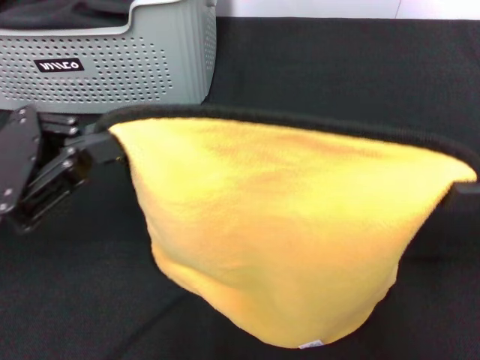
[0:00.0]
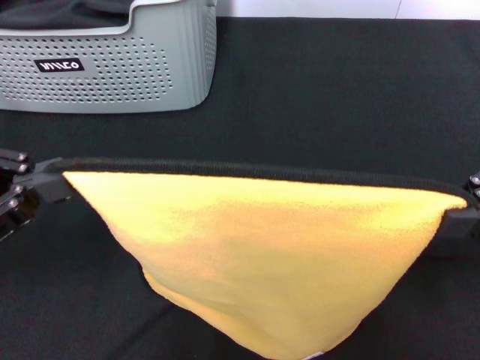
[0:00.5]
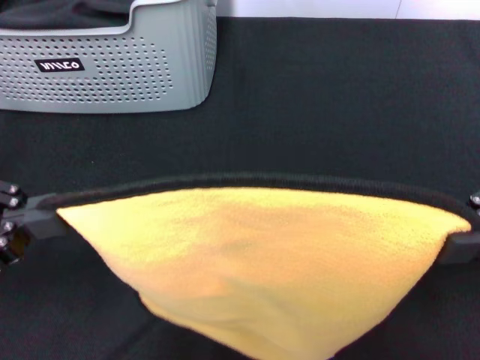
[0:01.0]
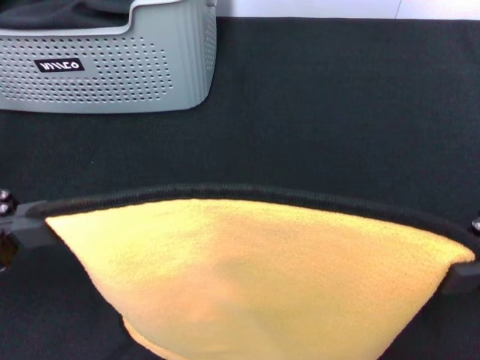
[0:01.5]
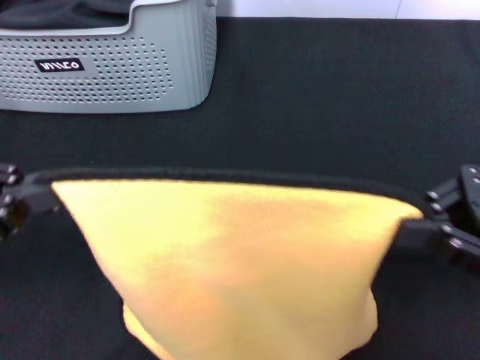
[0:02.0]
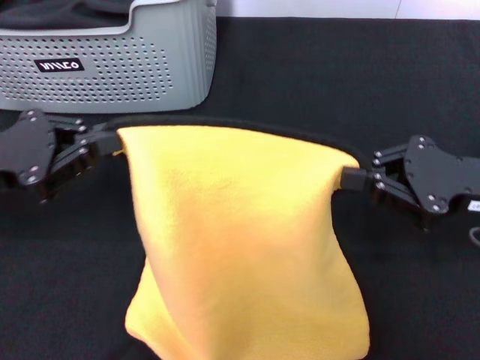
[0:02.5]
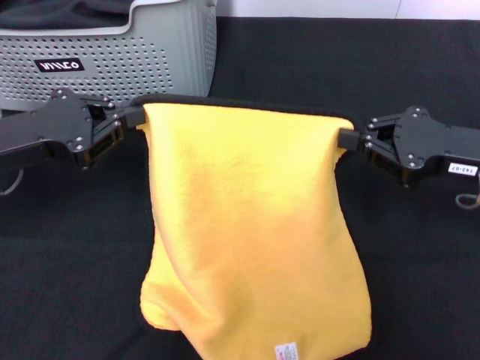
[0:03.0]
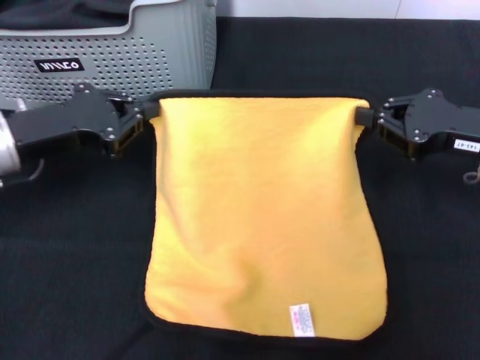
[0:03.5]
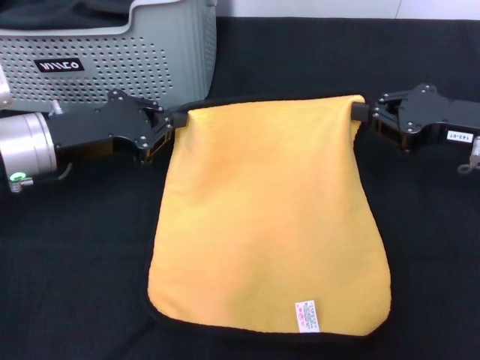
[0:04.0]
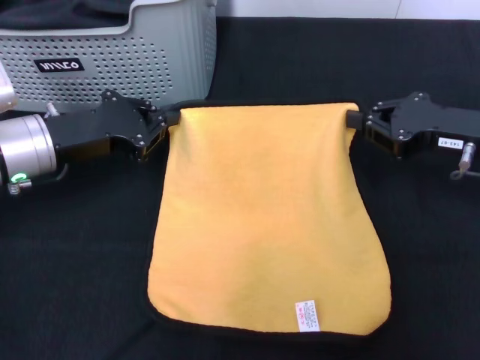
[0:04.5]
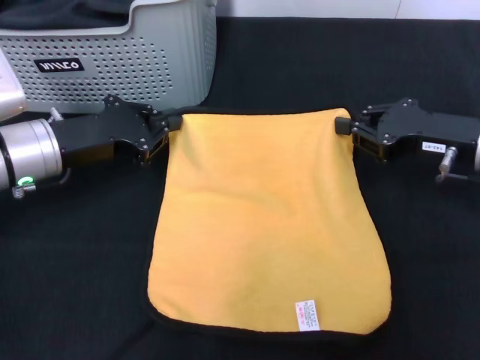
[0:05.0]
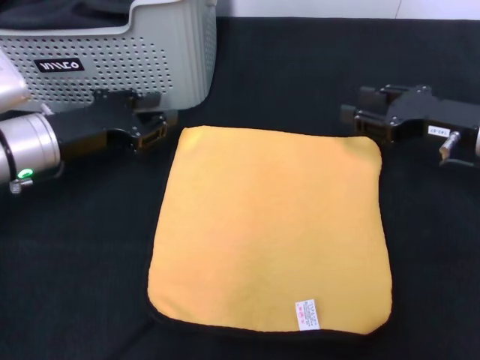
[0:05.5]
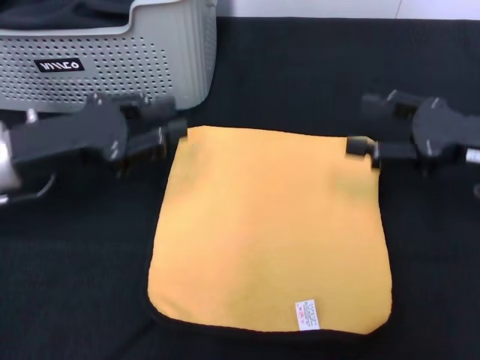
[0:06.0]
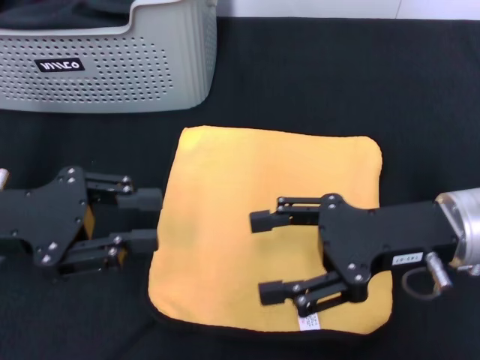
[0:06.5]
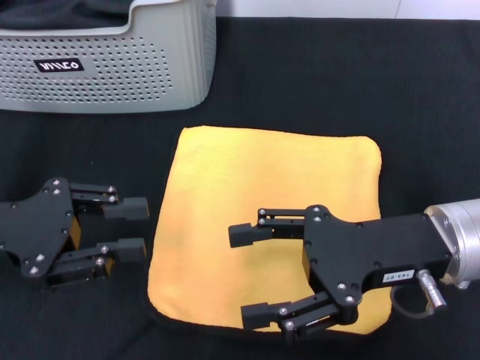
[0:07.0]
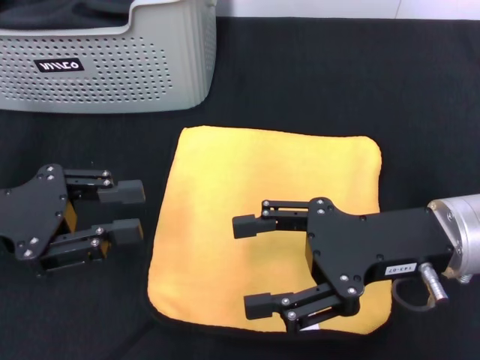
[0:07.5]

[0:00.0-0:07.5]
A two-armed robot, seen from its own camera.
Task of the whole recording: pick up the towel from the storage box and lay it flat on the black tablecloth.
Step, 0:00.0 to 0:05.0: Spread the towel flat with the right gripper.
0:00.0 to 0:02.0: The right gripper ends up roughly 5 cm from where it was. Meanwhile the left gripper shifts by some 5 cm.
0:02.0 to 0:04.0: The left gripper goes about 15 cm forward, to the right and downward. The right gripper shifts about 10 cm forward.
0:04.0 to 0:05.5: The left gripper opens up. Meanwhile the right gripper opens up.
0:05.5 to 0:07.5: The right gripper heads backward and to the left, covering approximately 15 cm, and opens its fingers. The left gripper is displaced backward and upward by about 10 cm.
